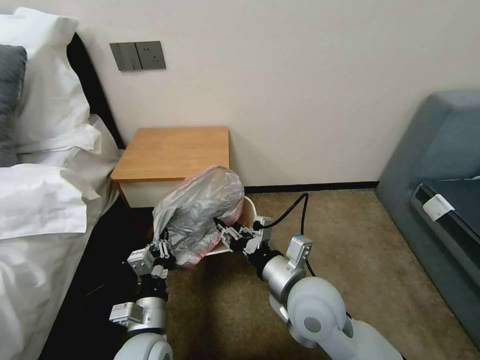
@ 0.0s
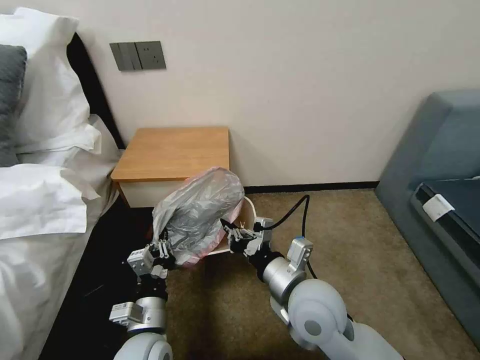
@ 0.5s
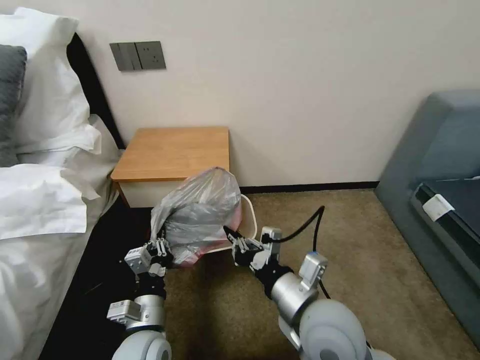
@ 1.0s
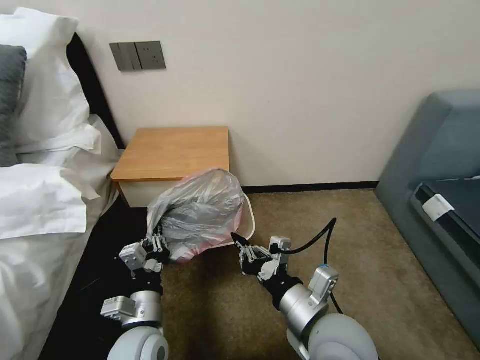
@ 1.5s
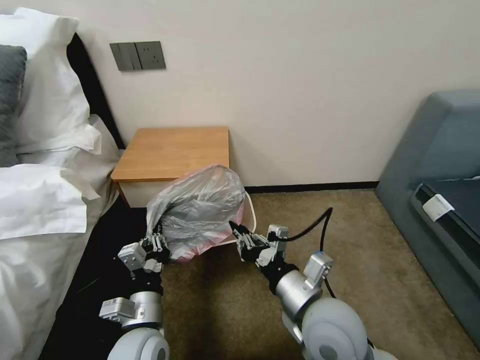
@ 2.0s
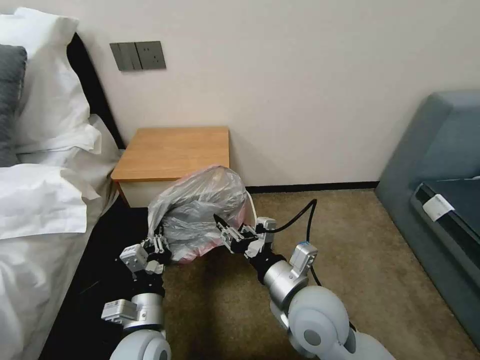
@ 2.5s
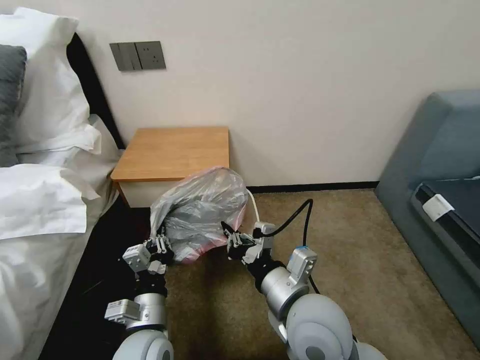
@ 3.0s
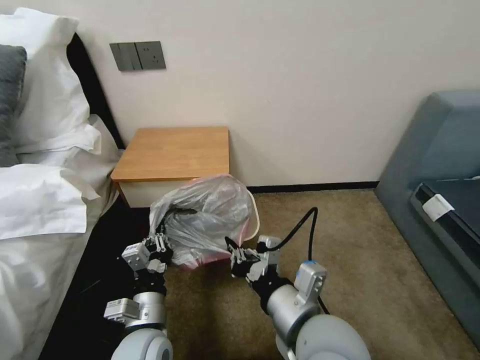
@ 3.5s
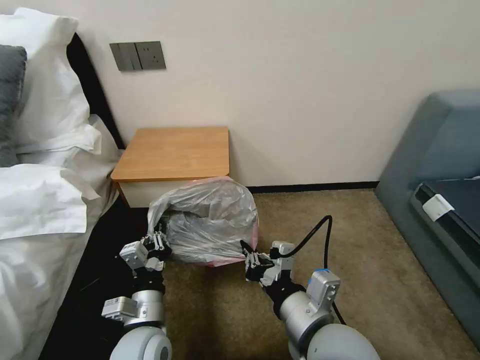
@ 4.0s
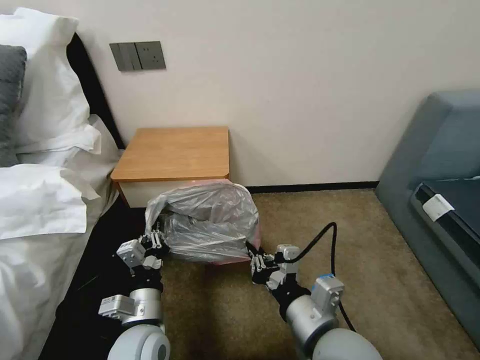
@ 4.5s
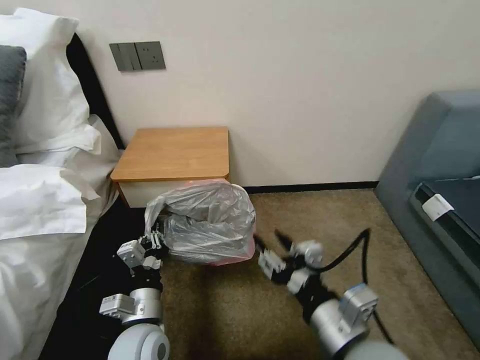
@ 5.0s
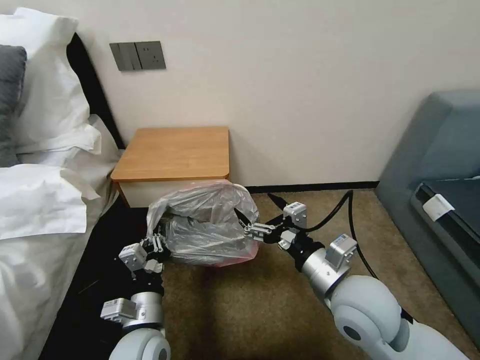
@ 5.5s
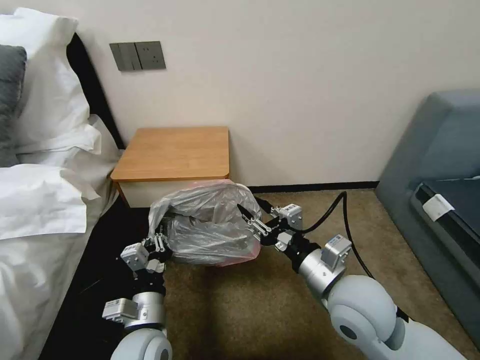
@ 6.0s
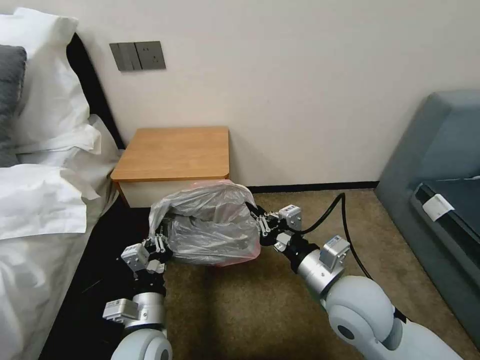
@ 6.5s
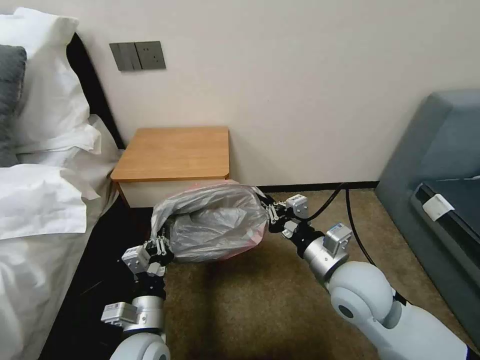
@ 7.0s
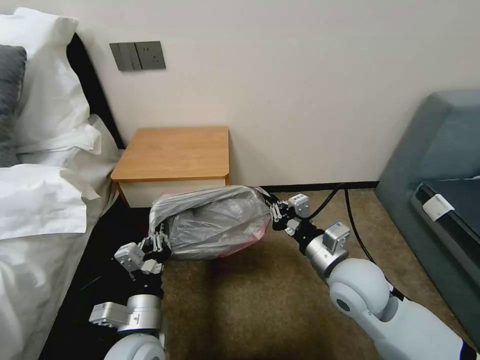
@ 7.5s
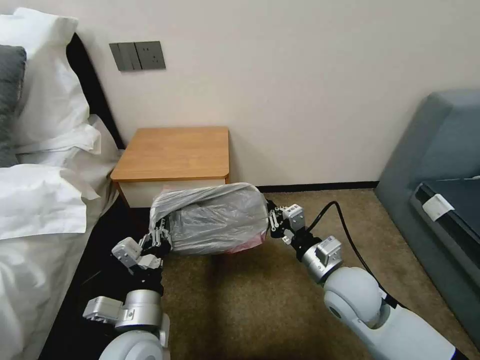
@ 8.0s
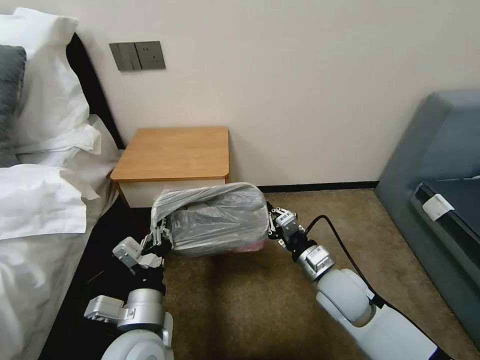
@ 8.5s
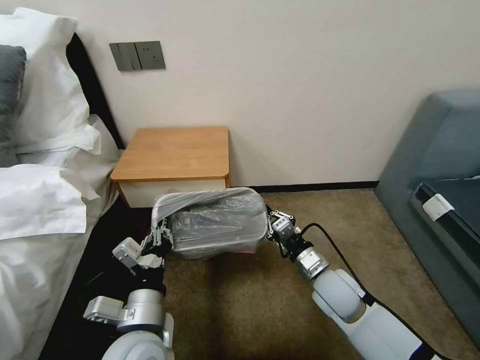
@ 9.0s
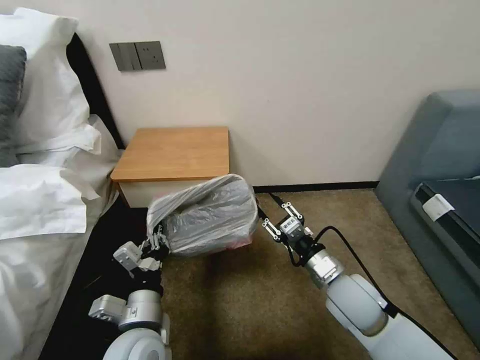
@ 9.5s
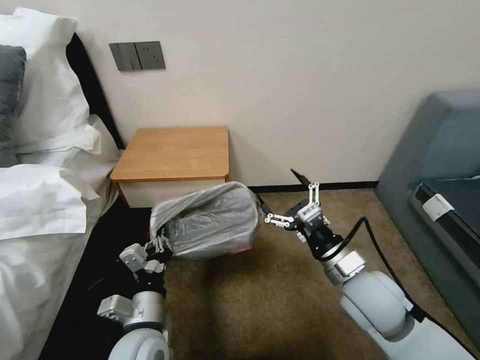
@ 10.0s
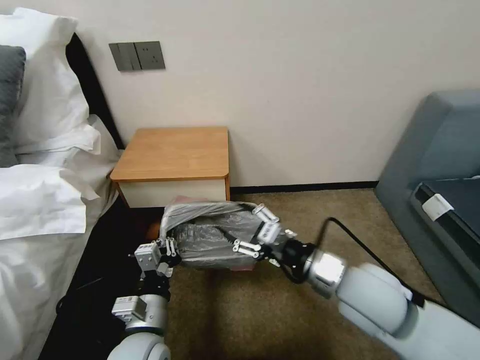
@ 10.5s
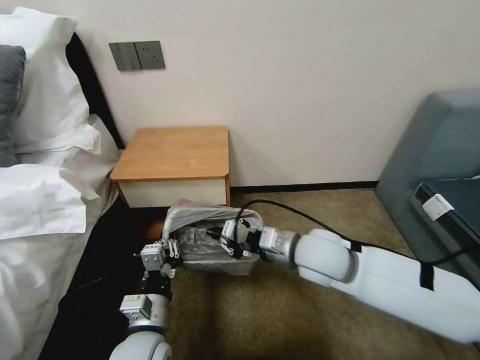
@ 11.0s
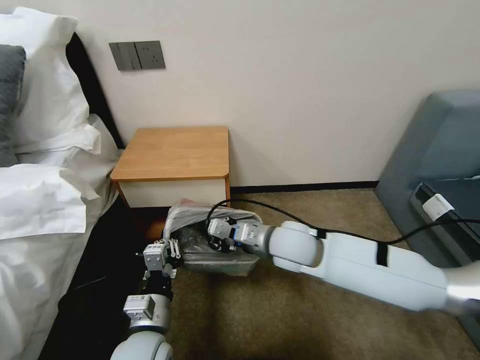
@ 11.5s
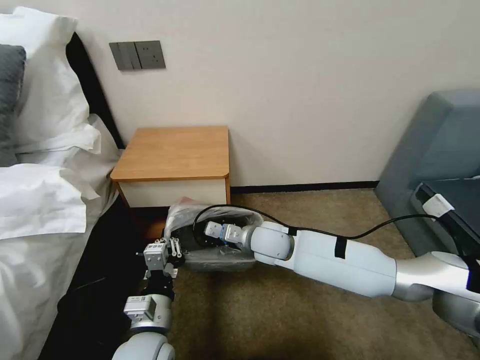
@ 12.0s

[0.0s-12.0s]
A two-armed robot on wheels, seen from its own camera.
Task of the whole recording: Pick up the garbage bag from the table and place it over the trash can.
2.0s to 4.0s: The right gripper shifts by approximately 5 cm, and opens, then closes once more.
4.0s to 6.0s: The right gripper goes approximately 10 cm forward and to the right, and opens its fingers.
6.0s to 8.0s: The left gripper shifts by approximately 5 cm. Meanwhile the right gripper heads downward, covering about 5 cm, and closes.
8.0s to 10.0s: The right gripper travels downward and back again, approximately 5 cm each way, and opens up.
10.0s to 12.0s: The right gripper is displaced to the left and forward by about 20 cm, and closes its fingers.

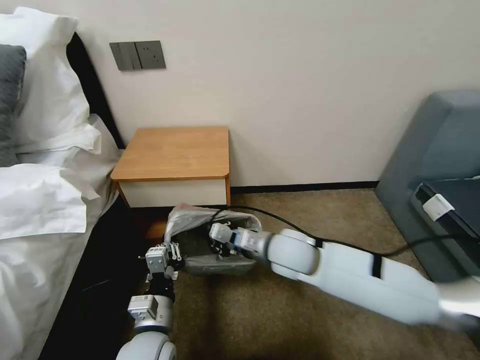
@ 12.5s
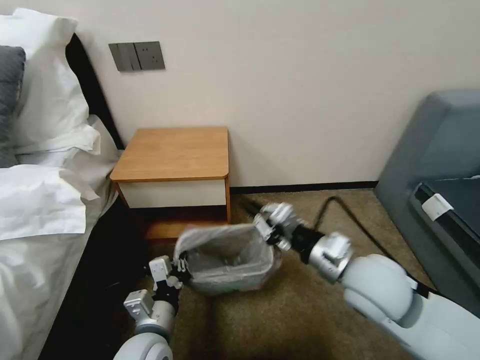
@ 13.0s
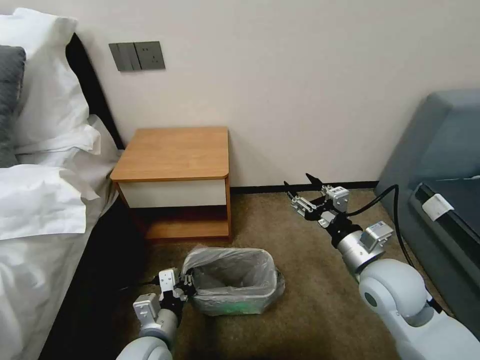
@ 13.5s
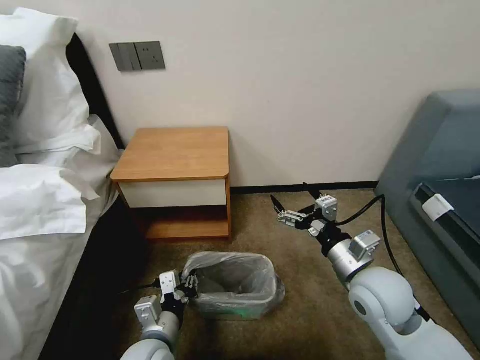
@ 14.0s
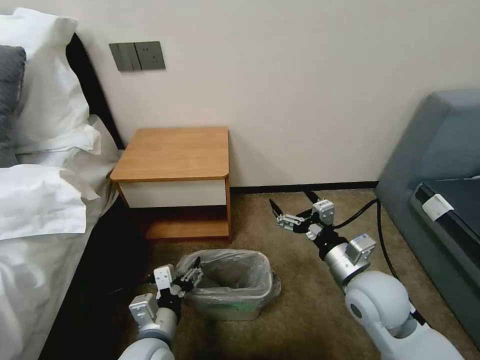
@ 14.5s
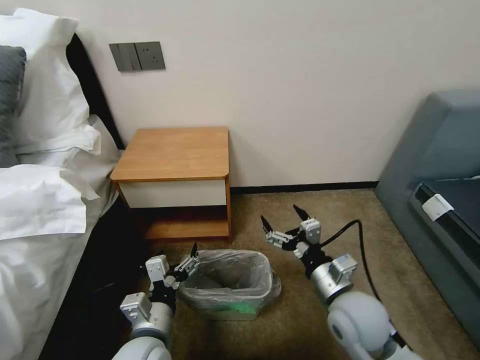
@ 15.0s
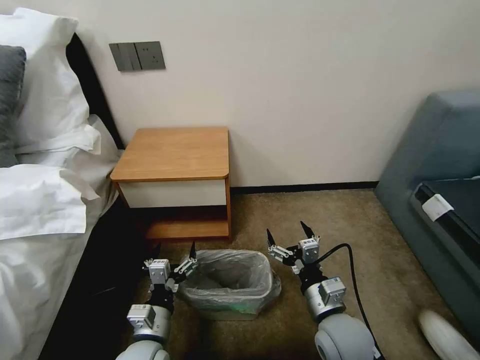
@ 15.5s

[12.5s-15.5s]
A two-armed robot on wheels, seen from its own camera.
Task of the whole recording: Pick up the garbage bag from the table and place it over the trash can.
12.5s to 14.0s: The right gripper shifts some 15 cm to the right and backward, and opens its fingers.
14.0s to 15.5s: The right gripper shifts approximately 10 cm downward, backward and to the left. The left gripper opens its fingers.
